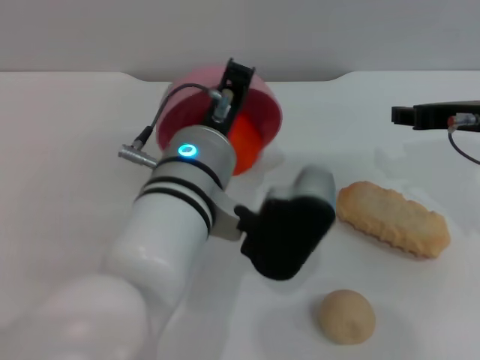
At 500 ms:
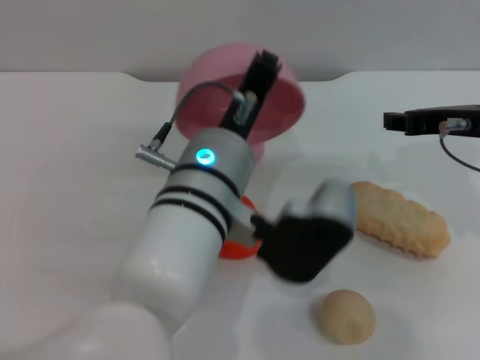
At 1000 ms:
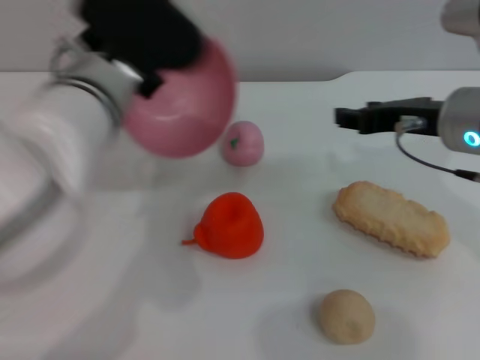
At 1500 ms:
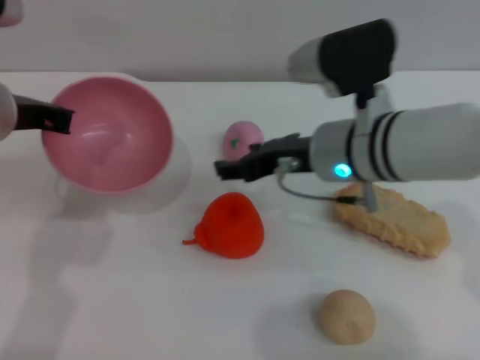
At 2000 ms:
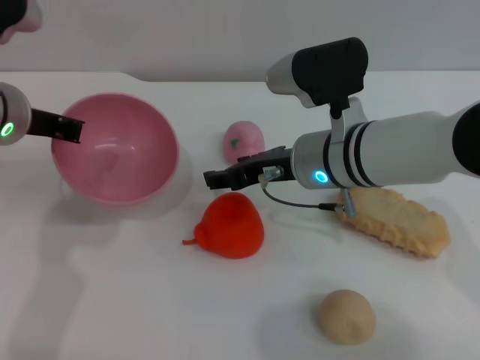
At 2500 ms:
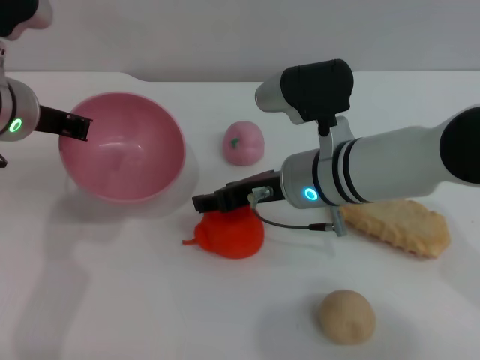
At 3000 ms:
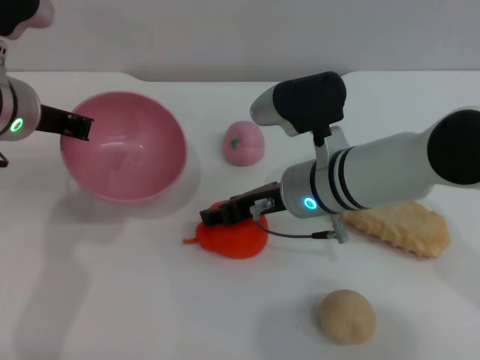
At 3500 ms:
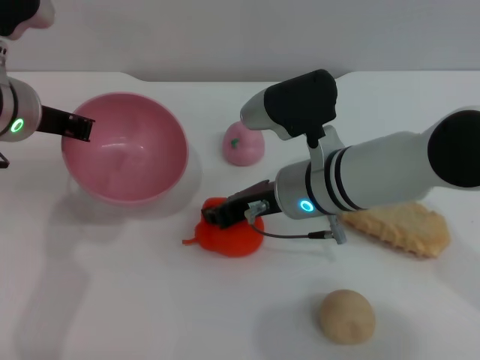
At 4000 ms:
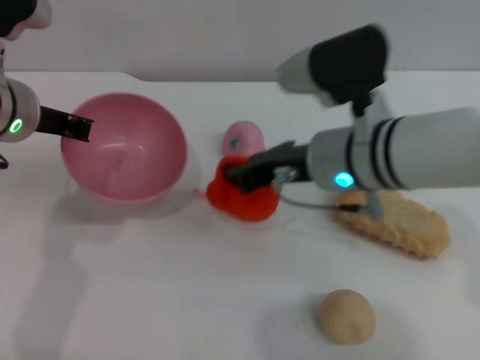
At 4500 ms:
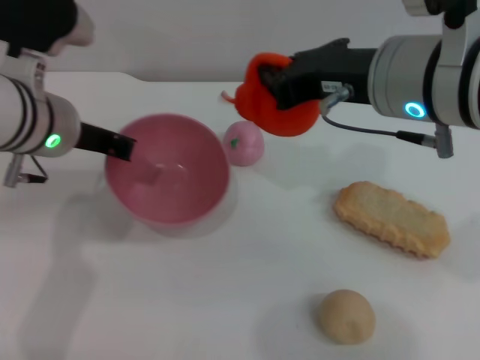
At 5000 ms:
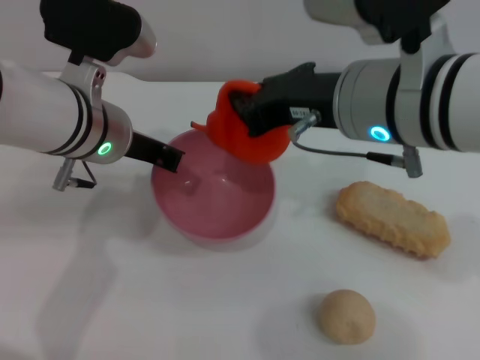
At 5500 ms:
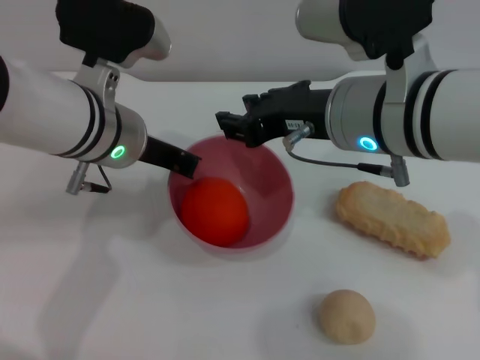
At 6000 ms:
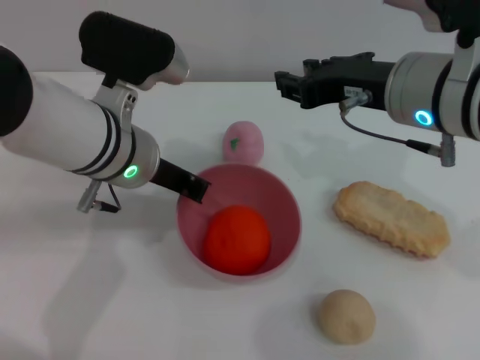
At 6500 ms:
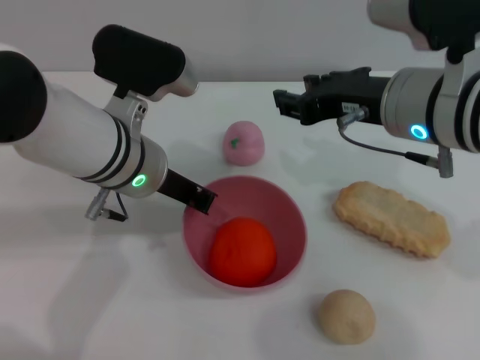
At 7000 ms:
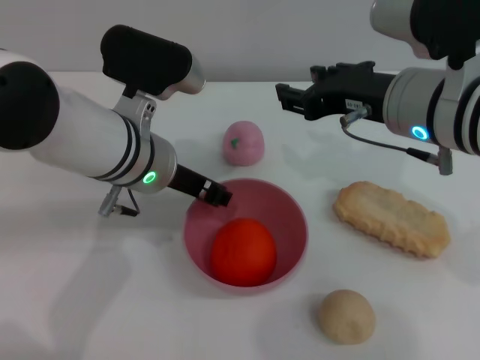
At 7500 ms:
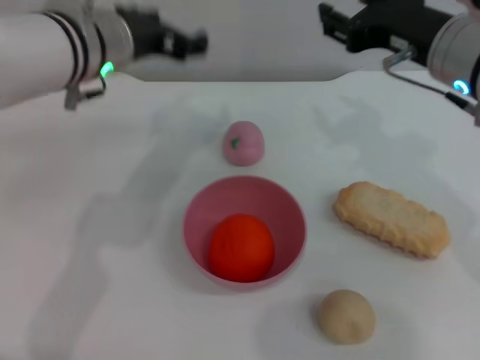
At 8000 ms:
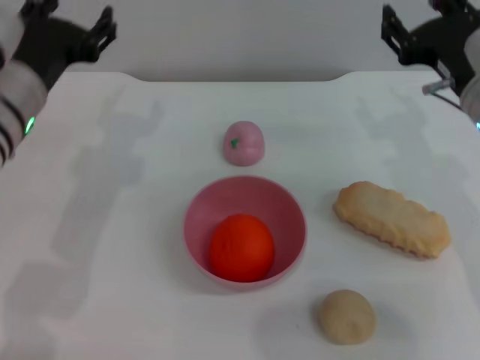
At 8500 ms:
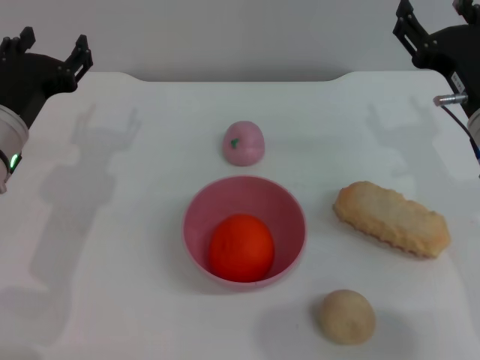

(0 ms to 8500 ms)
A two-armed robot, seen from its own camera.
Task of the whole recording: put the orange into the pink bowl and pour it out repeatedly.
Step, 1000 ms - 4000 ms: Pick up the orange with the right gripper.
Step, 4500 ms - 5000 ms: Place the orange into the bowl.
Step, 5500 ms - 7000 ms: Place the bowl on the table.
0 ms - 2000 ms: The right gripper heads to the left and downward, covering approximately 15 cm. The left gripper heads to the left and forward, covering about 20 cm.
2000 ms - 4000 ms: The right gripper closes up.
4000 ms - 6500 ms: The right gripper shifts some 5 cm upward, and opens; the left gripper moves to the right, about 10 cm.
6500 ms - 8500 ms: The right gripper travels to the right and downward by some 10 cm, and opens its fingers. Meanwhile the left gripper moves to the left, approximately 10 cm, and opens.

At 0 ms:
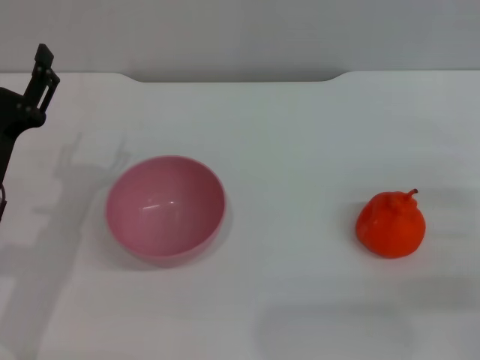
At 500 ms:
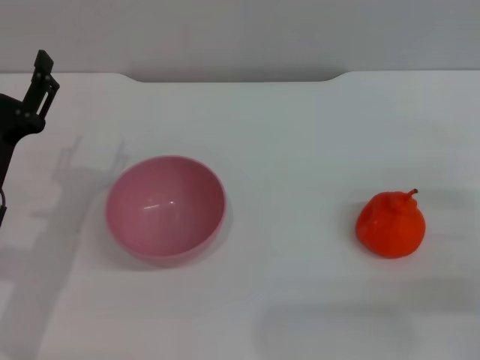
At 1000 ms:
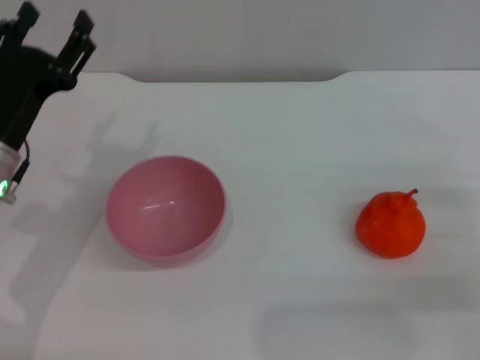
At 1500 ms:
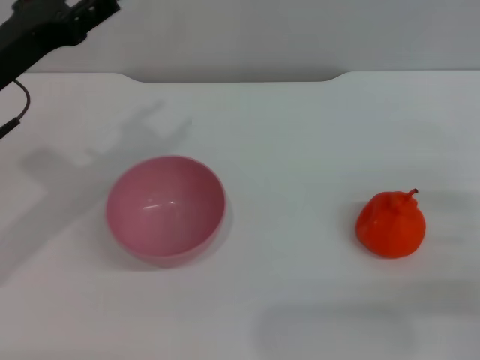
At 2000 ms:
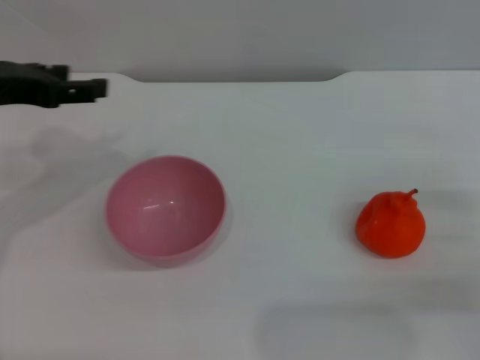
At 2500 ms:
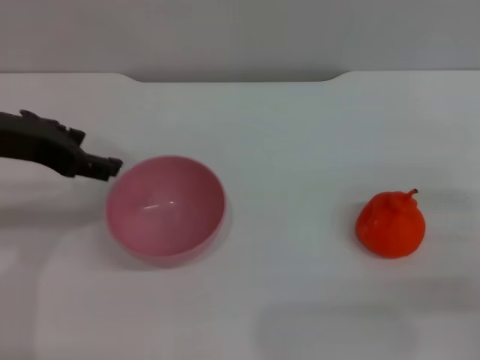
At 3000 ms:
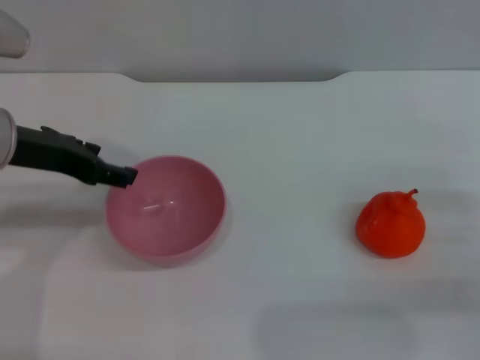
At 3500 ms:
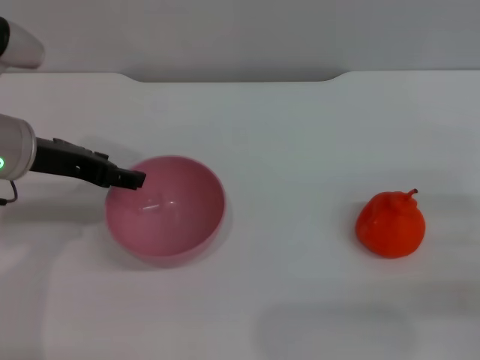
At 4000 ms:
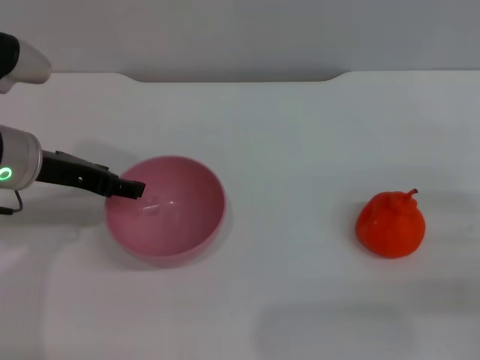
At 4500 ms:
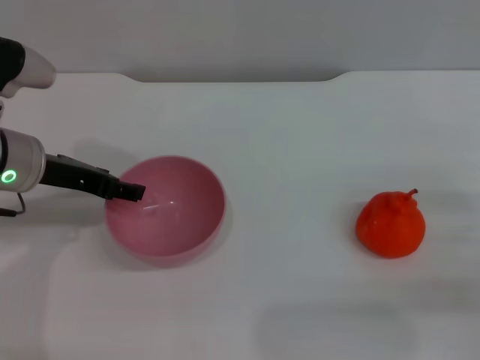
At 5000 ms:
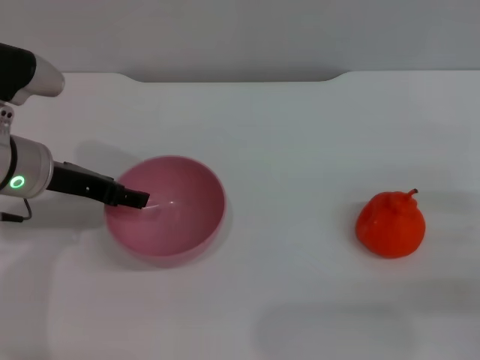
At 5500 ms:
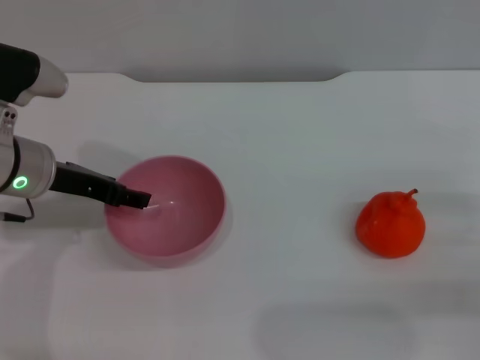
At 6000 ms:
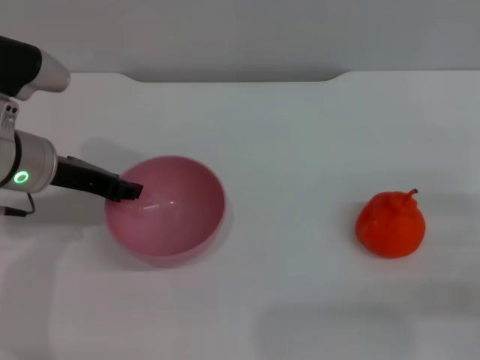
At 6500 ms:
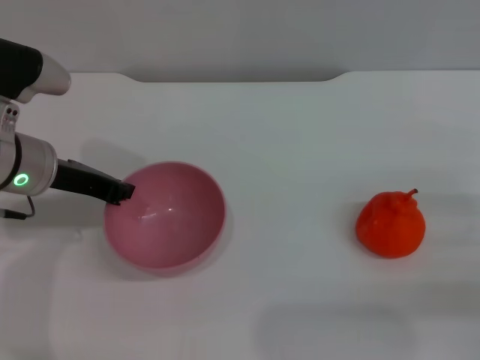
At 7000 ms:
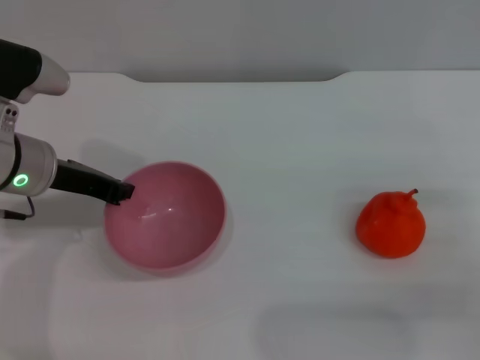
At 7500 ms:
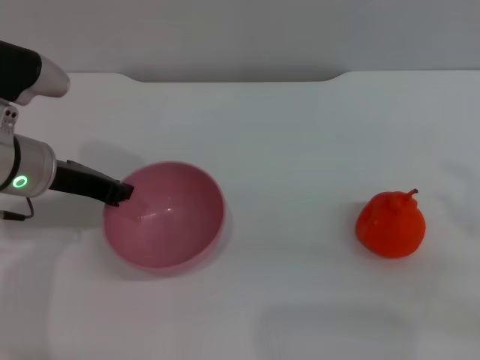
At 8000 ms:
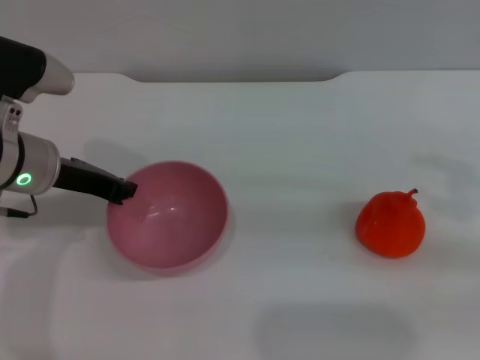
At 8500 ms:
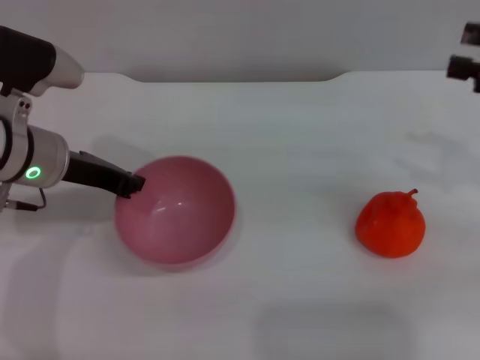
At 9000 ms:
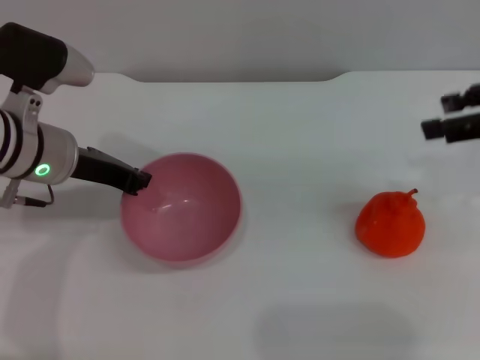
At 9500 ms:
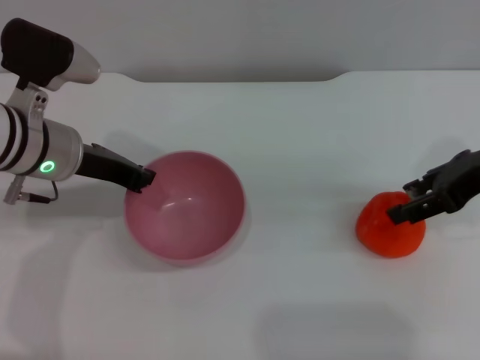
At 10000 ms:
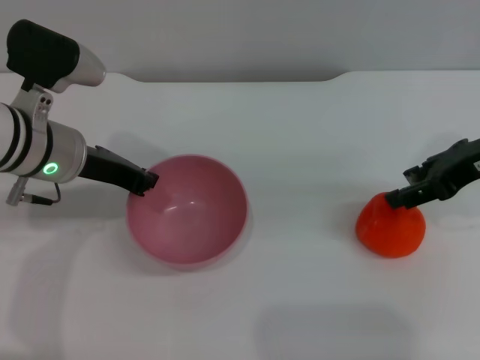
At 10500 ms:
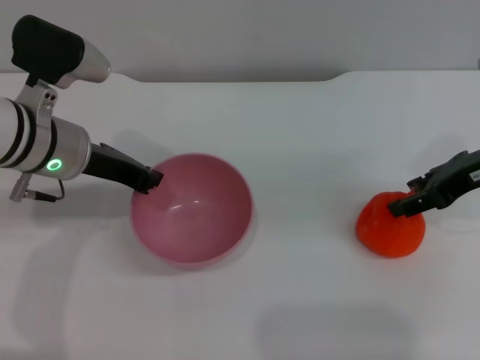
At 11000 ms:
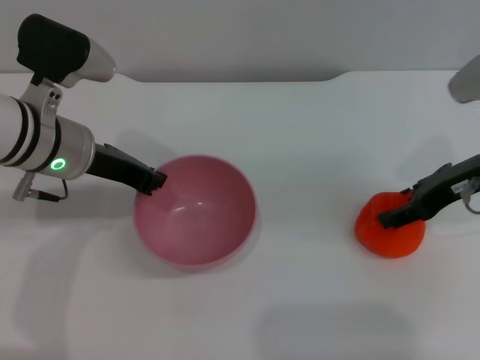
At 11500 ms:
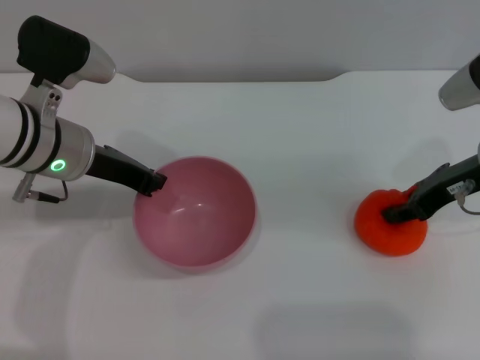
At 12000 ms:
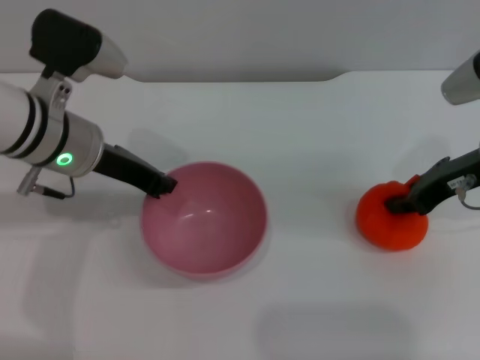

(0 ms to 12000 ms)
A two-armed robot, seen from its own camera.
Task of the whole recording: put the orange into the pink bowl and pour it out repeatedly.
Step, 0 ms - 10500 ms: Pick up the bowl with the left gripper.
0 ms - 2000 ms: The left gripper shifts about 15 cm upward and forward.
2000 ms - 4000 ms: The left gripper moves downward and to the right, some 10 cm.
4000 ms - 6000 ms: The grippers make only small movements.
6000 ms - 8000 ms: The right gripper goes roughly 15 cm upward. Meanwhile the left gripper closes.
8000 ms - 10000 ms: The right gripper is displaced to the left and forward by about 10 cm.
10000 ms - 12000 ms: The right gripper closes up.

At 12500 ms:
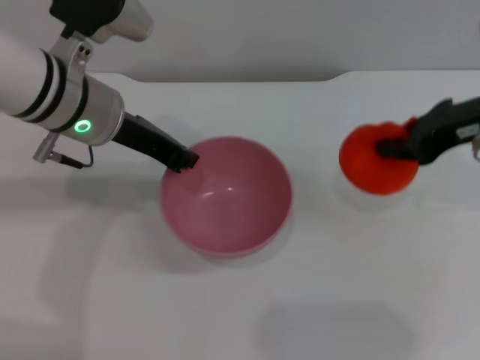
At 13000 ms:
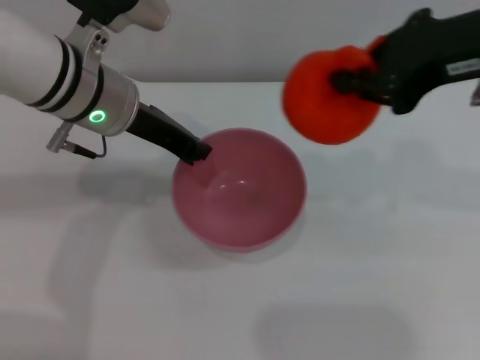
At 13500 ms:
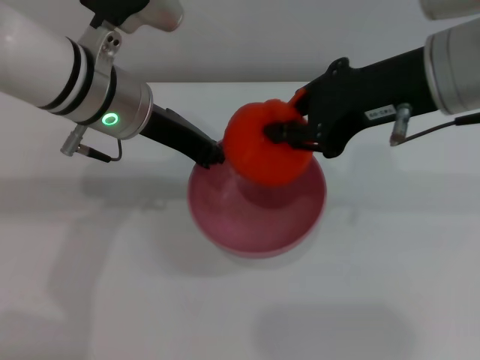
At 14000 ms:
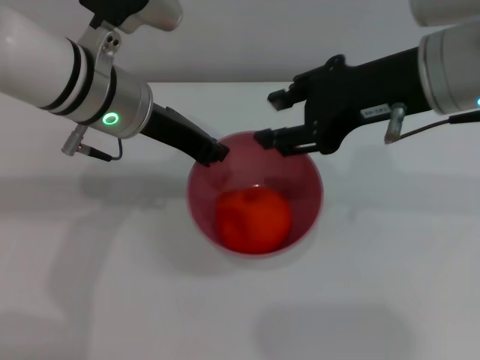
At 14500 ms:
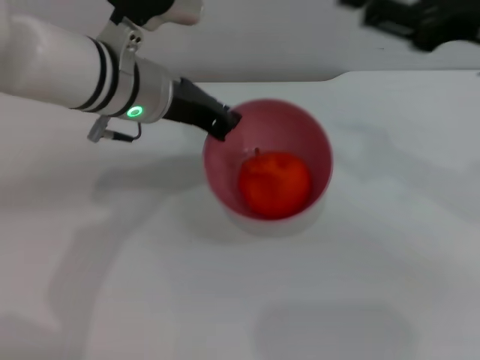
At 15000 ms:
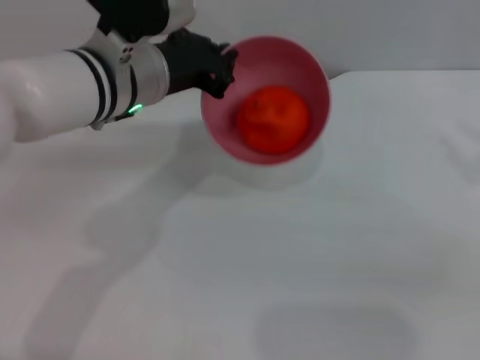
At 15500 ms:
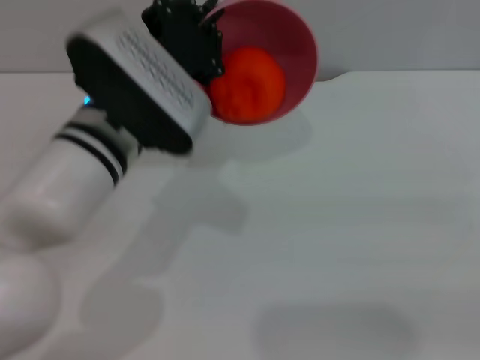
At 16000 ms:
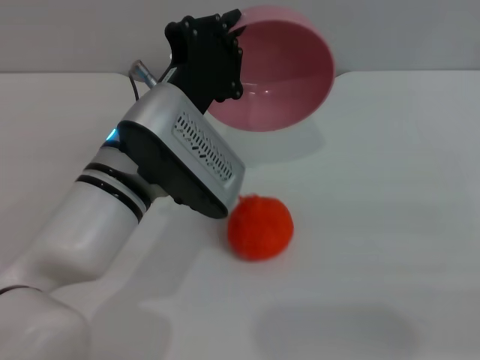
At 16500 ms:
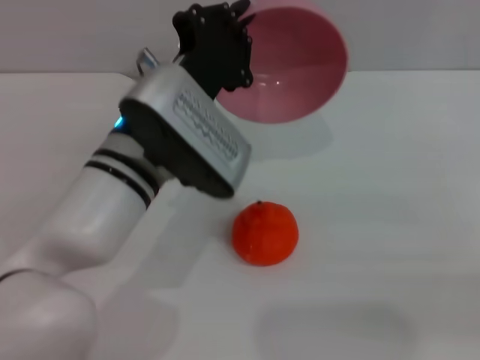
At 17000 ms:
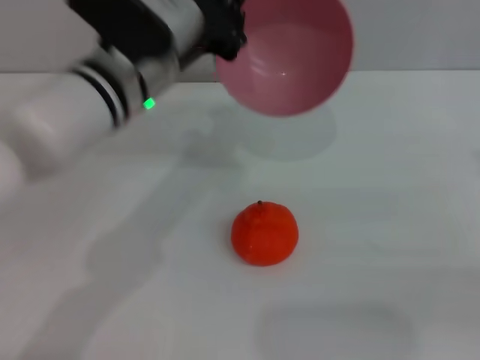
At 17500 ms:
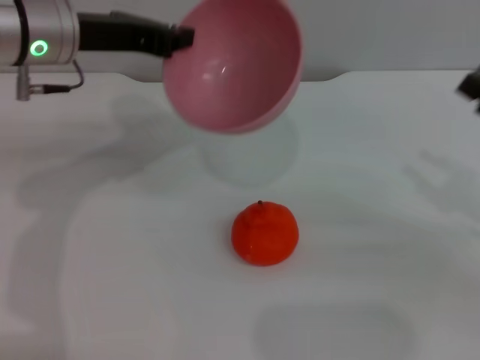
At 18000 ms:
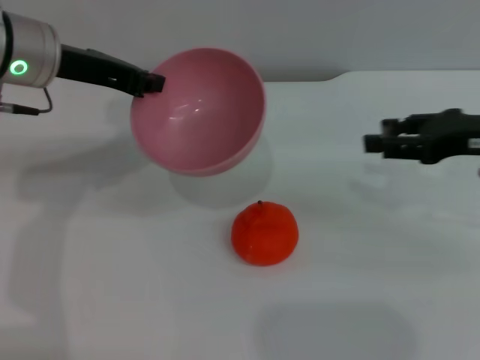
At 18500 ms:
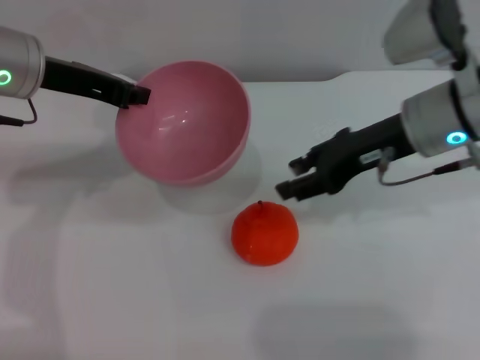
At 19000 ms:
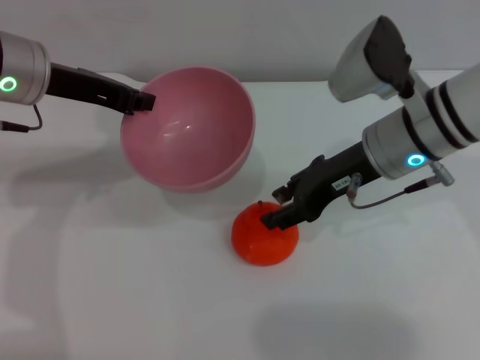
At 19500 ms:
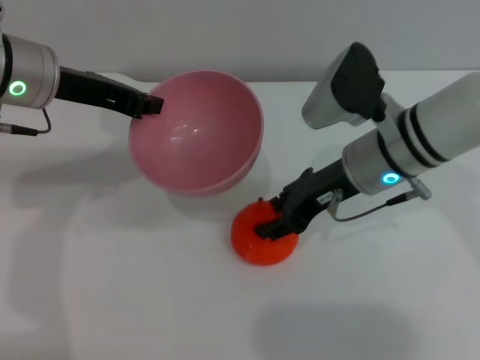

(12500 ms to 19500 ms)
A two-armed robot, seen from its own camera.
Task of the whole recording: put the orange into the pink bowl and pour it out repeatedly.
Step, 12500 ms - 13500 ms: Place the orange into the bowl.
Step, 14000 ms - 16000 ms: Pour the orange out of the bowl.
12500 ms - 14500 ms: The right gripper heads backward, covering approximately 5 cm, travels to the left and back again, about 10 cm each way, and opens its fingers.
14500 ms - 16000 ms: The left gripper heads backward and downward, covering approximately 10 cm. Meanwhile the right gripper moves to the right, downward and backward, roughly 20 cm.
16000 ms - 17500 ms: The right gripper travels forward and to the left by some 10 cm. Meanwhile the left gripper moves to the left, forward and upward, roughly 15 cm.
17500 ms - 19500 ms: The right gripper travels to the left and forward by about 25 cm.
